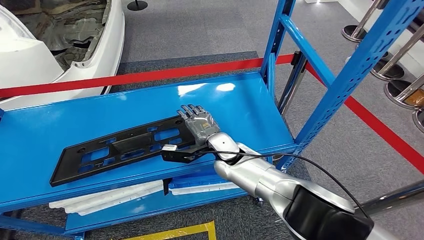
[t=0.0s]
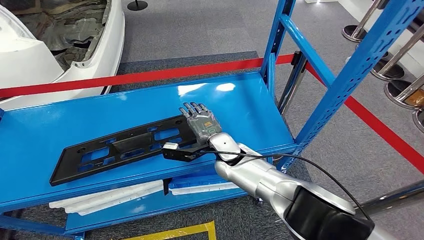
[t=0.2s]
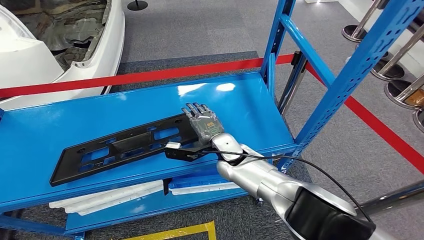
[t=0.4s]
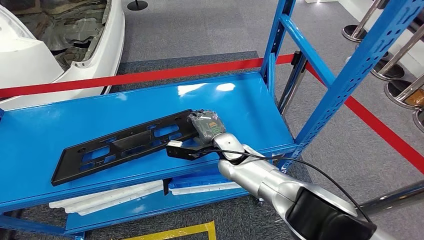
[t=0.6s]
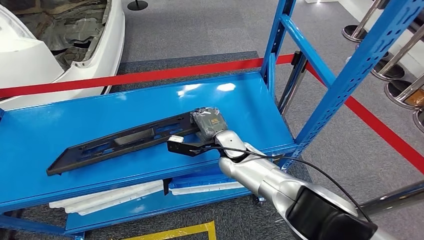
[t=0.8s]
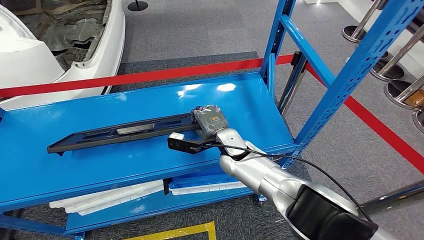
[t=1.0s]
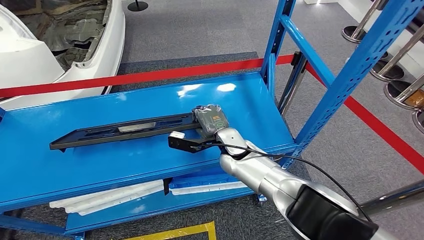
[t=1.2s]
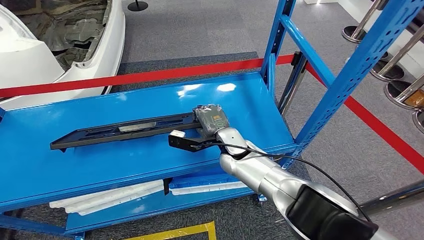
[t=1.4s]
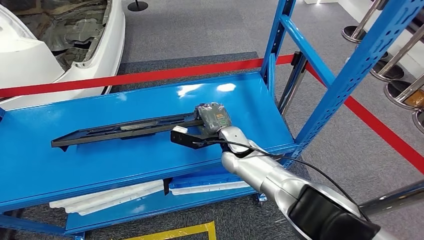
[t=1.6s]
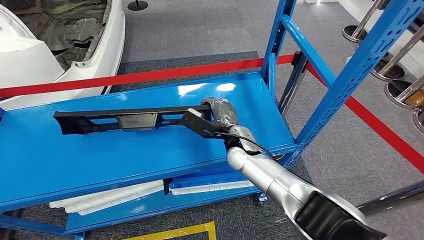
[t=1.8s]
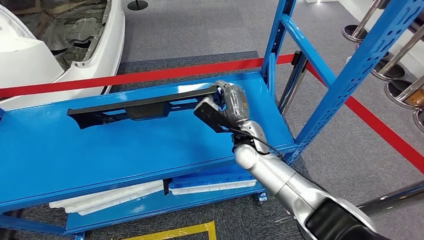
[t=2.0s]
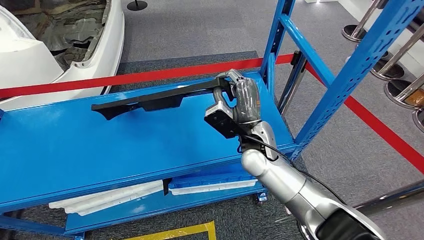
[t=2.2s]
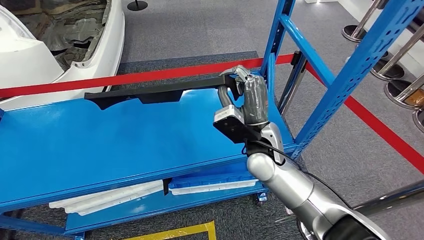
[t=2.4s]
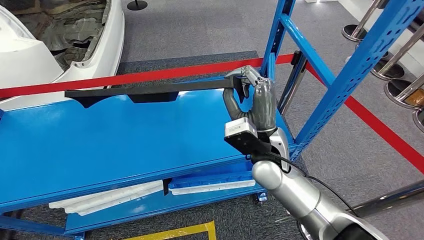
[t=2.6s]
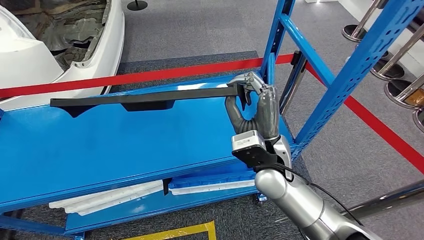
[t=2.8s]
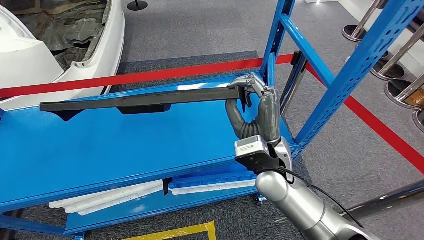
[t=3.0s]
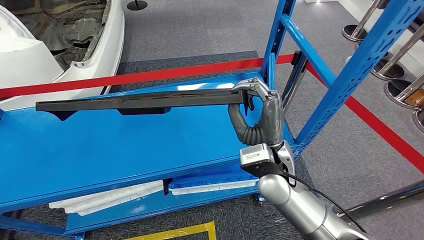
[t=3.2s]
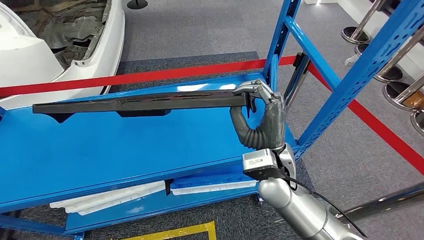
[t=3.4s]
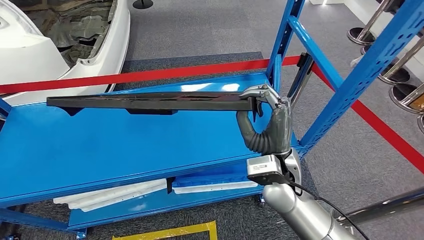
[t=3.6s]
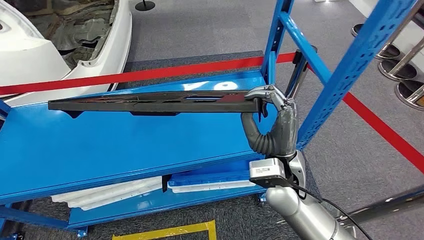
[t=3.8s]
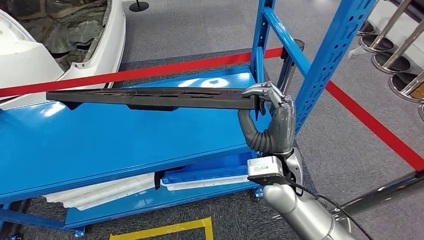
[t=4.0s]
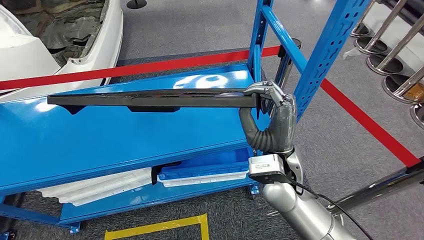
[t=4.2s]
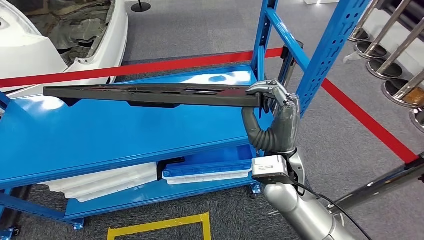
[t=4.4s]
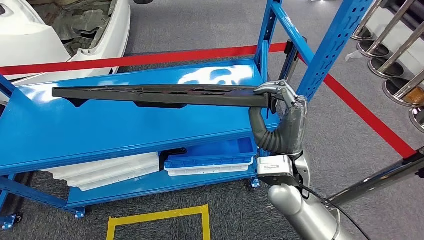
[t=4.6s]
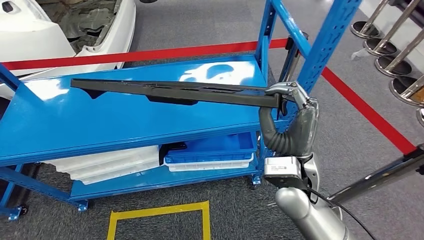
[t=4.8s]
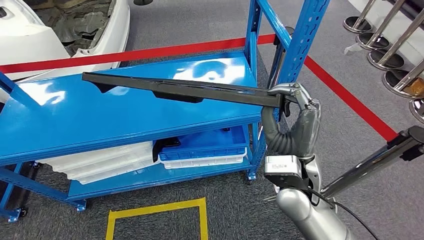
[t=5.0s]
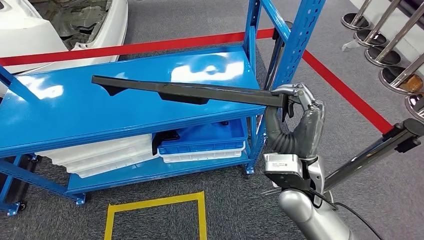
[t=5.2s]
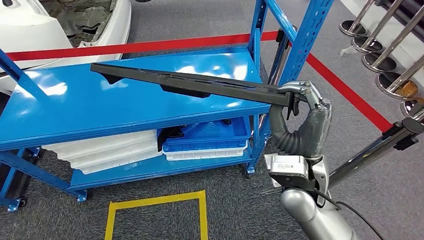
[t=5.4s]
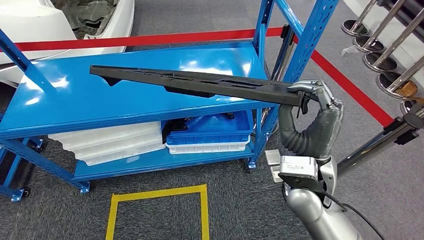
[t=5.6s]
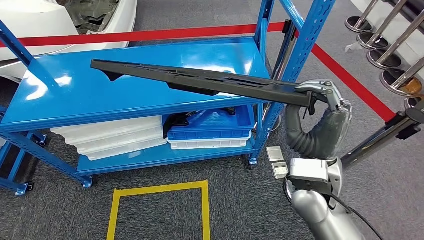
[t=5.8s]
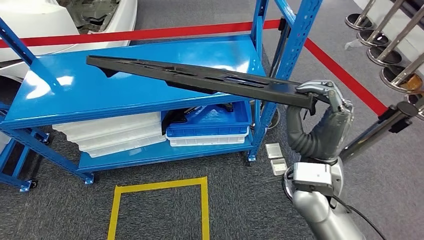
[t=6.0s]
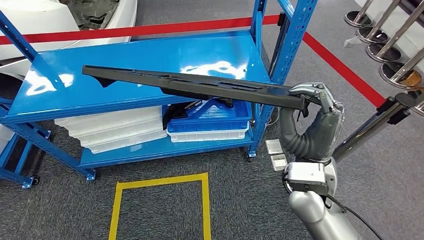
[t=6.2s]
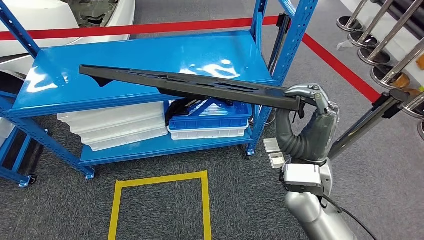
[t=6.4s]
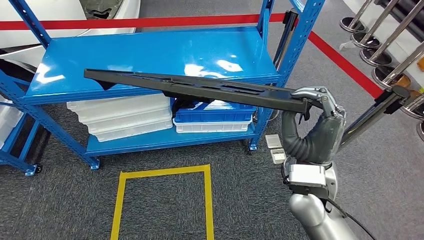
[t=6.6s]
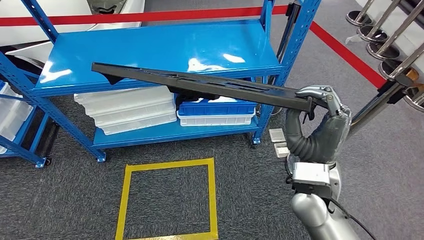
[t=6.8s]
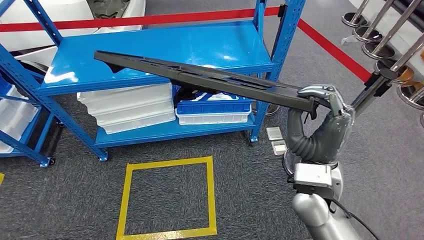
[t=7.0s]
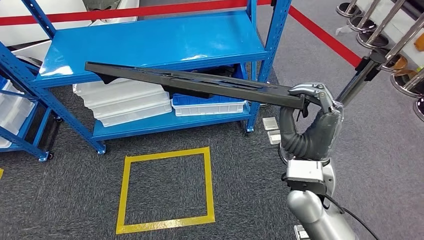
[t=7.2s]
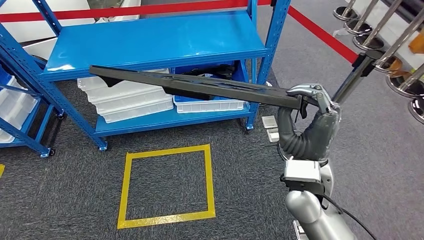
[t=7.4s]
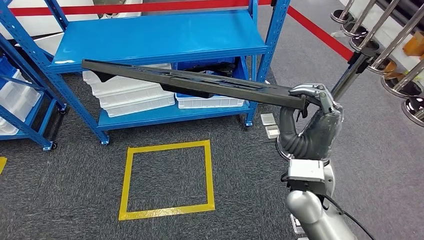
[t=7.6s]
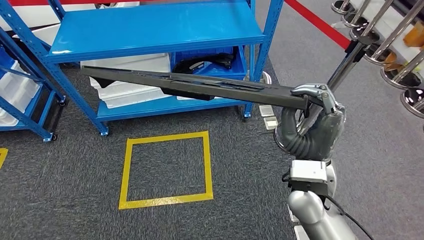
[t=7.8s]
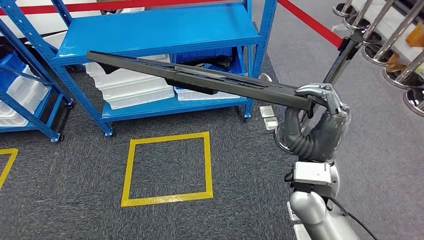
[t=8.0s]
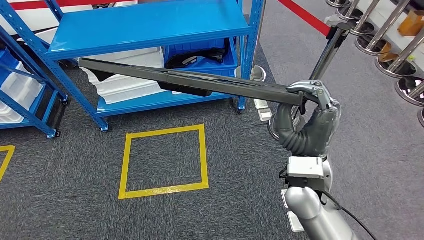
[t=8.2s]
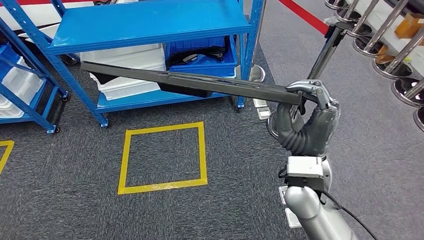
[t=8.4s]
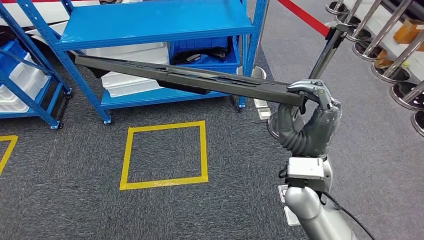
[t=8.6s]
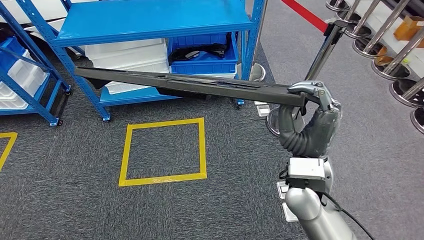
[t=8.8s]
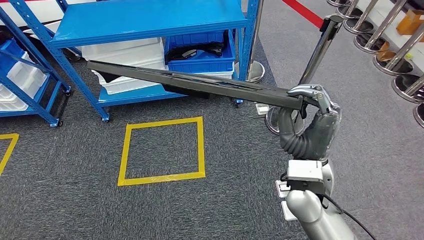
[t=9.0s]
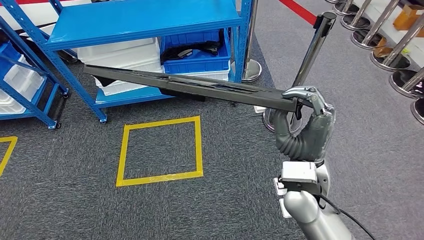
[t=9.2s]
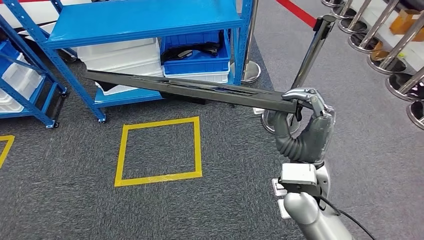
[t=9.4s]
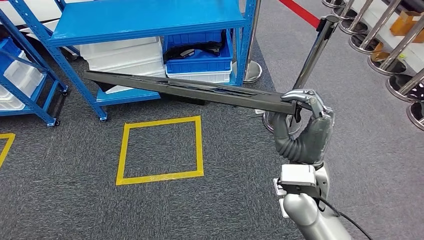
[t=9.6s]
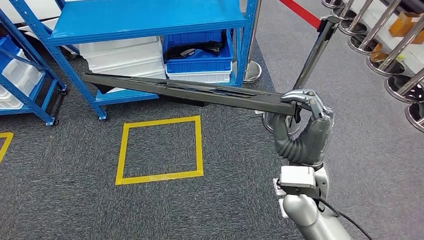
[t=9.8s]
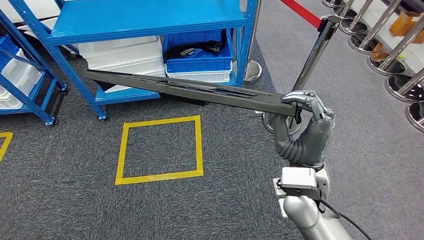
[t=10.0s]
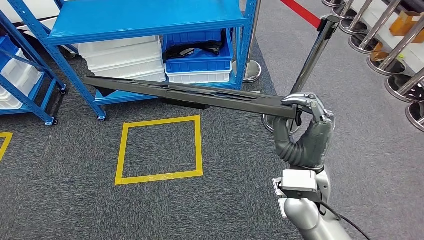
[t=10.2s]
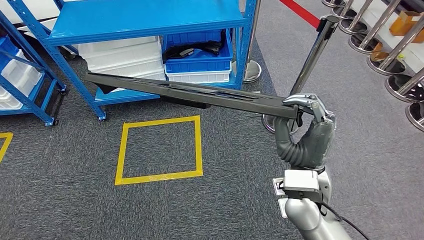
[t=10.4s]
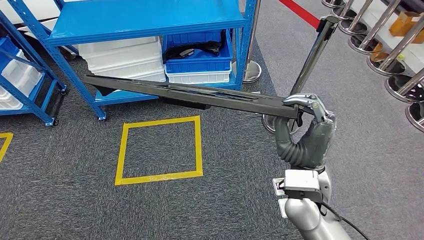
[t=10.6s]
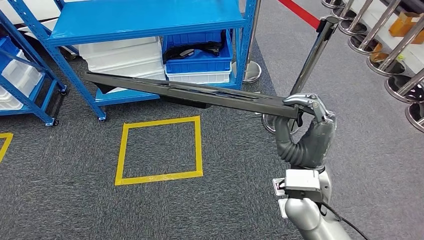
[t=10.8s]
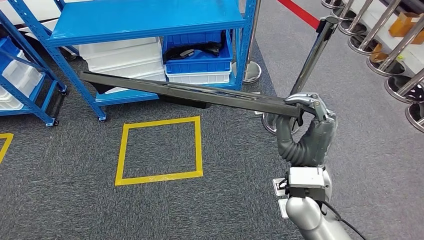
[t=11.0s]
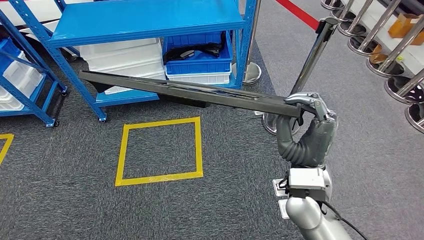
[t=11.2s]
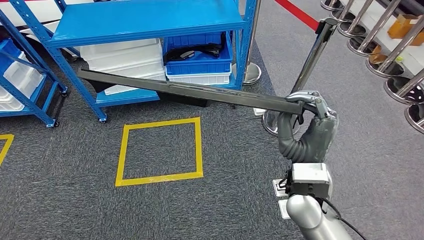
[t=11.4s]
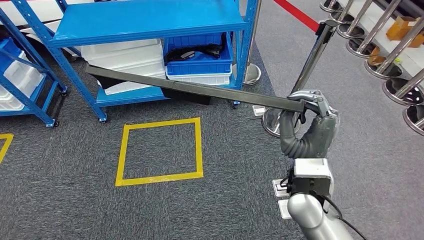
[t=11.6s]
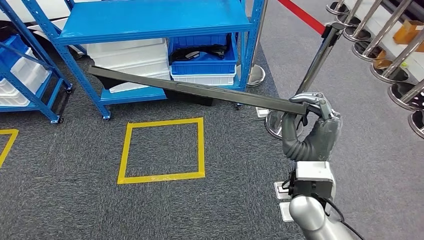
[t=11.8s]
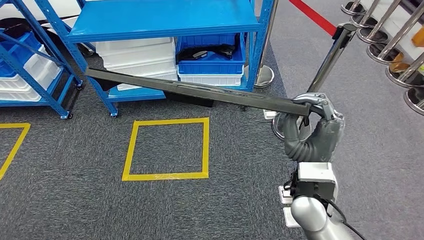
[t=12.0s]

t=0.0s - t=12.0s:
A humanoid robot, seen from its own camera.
Step, t=0.0s - t=5.4s: Pick up the large material from the shelf.
t=0.0s - t=1.6s: There are only small adjustments of the hands.
t=1.6s - t=3.0s: The right hand moves backward and upward, some 15 cm.

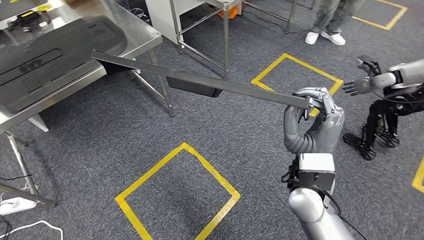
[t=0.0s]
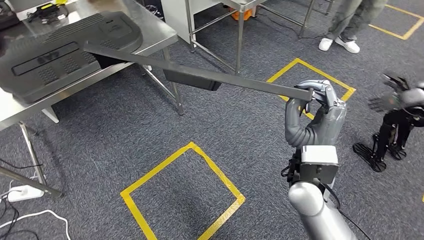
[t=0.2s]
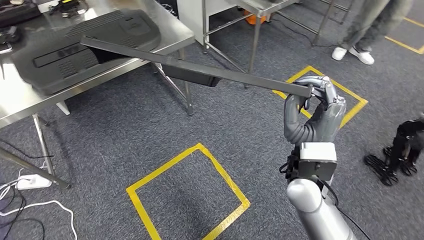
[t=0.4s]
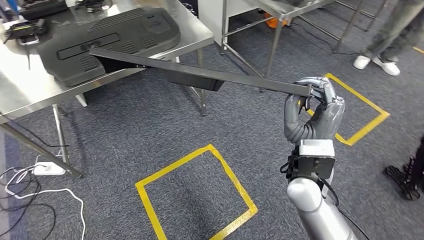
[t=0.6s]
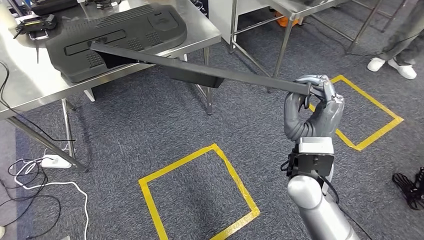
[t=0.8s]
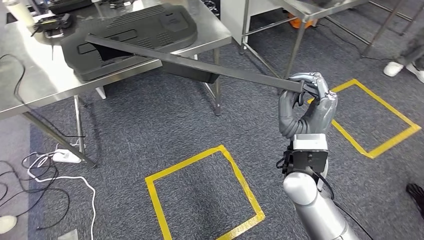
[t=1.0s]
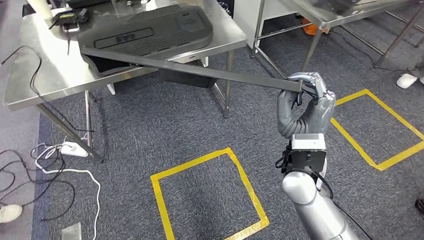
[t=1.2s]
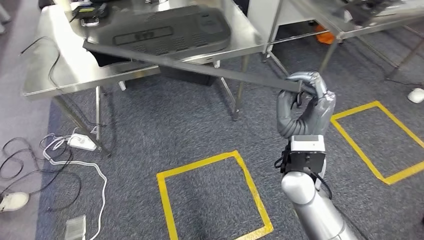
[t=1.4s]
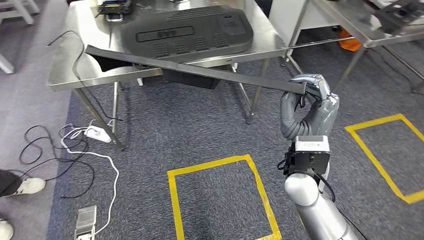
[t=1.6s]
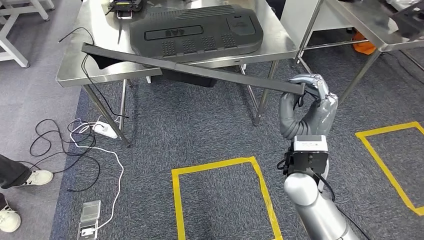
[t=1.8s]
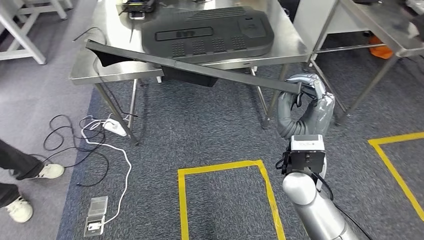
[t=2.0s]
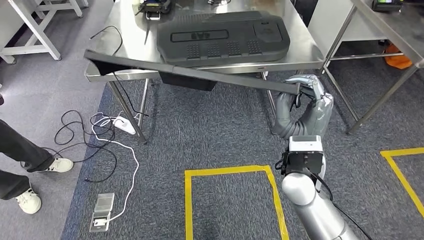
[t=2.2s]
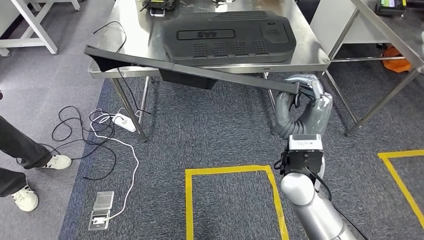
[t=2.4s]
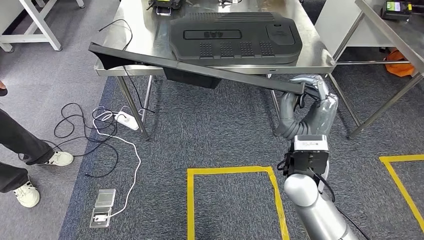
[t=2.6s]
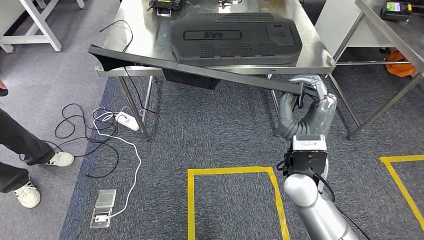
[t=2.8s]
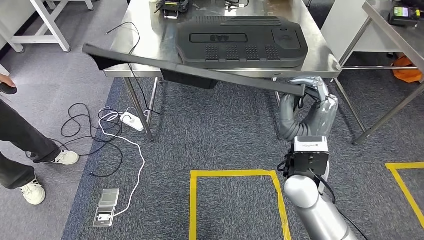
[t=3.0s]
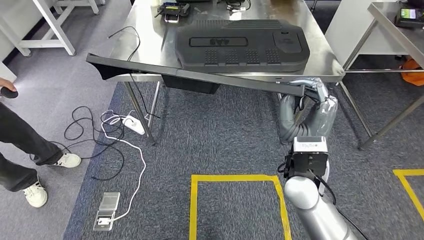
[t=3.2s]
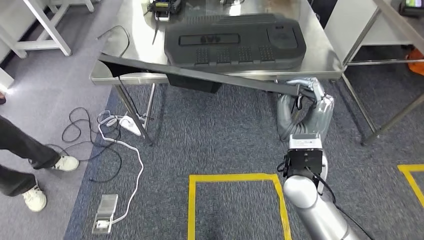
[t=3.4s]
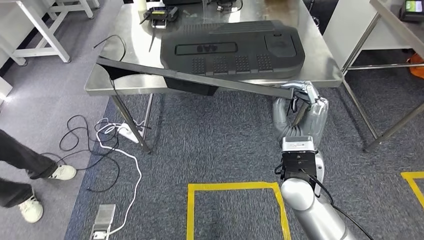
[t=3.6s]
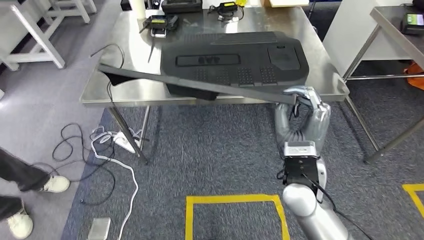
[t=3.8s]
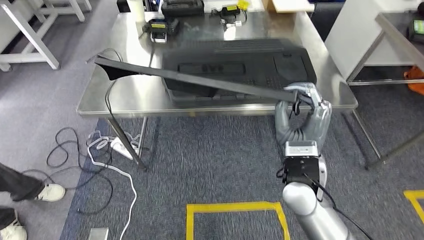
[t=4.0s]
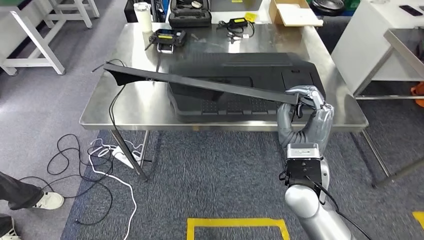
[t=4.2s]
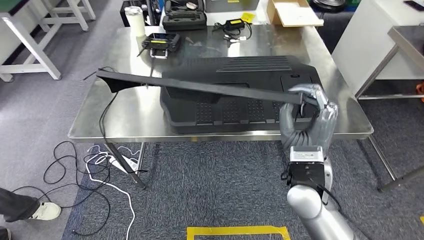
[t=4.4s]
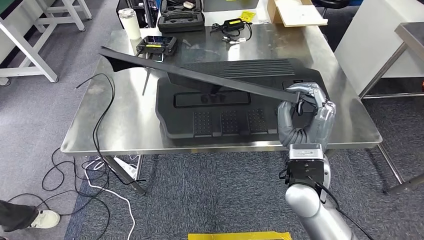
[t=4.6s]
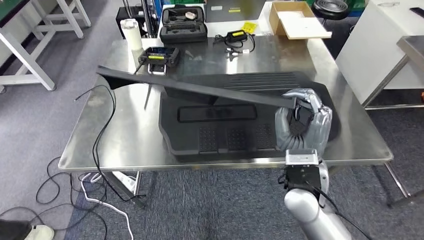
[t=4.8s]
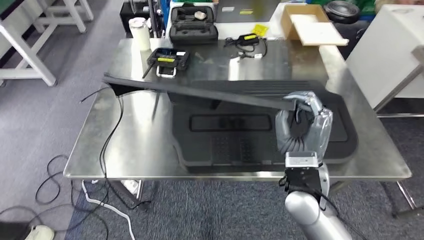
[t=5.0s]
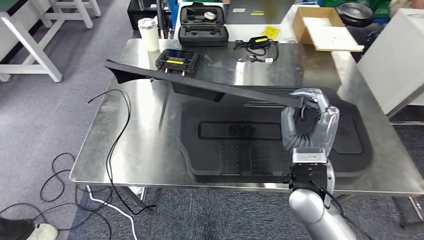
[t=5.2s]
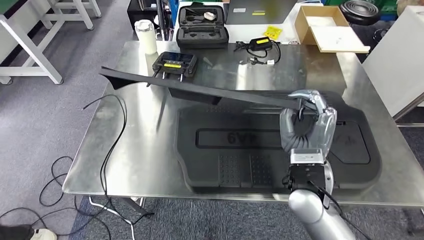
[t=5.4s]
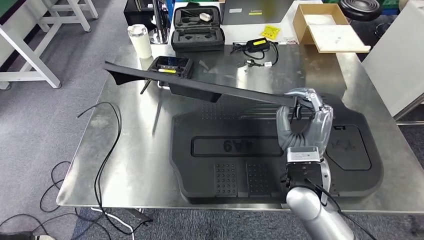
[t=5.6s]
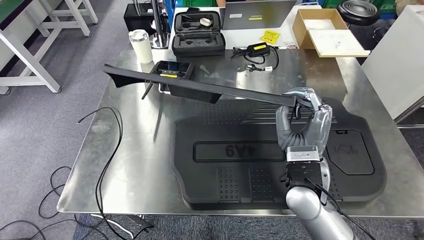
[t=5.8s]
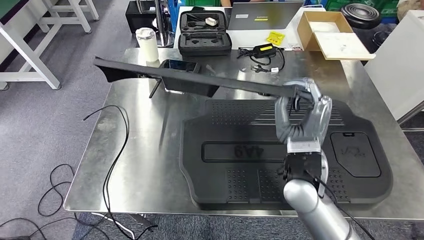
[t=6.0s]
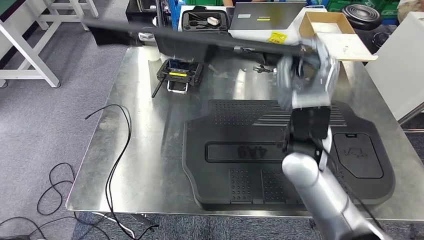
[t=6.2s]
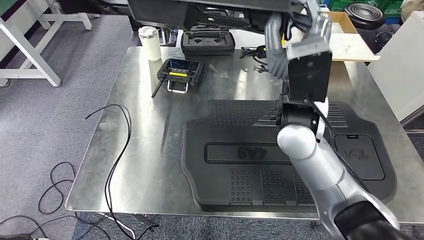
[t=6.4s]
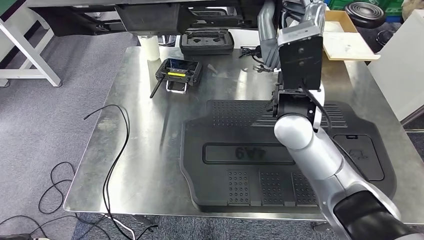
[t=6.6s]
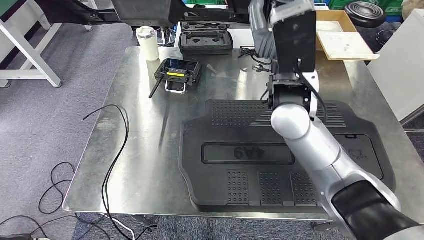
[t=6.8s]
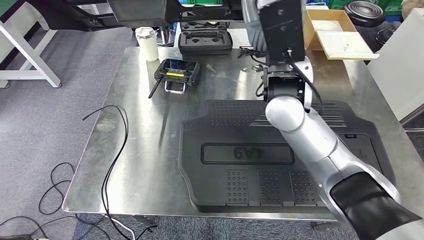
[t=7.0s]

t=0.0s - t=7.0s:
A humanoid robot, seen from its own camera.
Step, t=0.0s - t=4.4s: Move the large material to the workbench.
